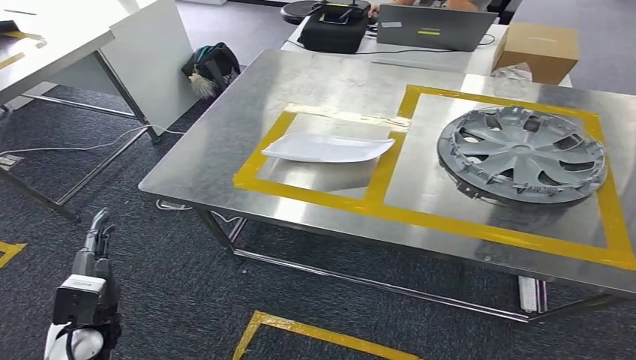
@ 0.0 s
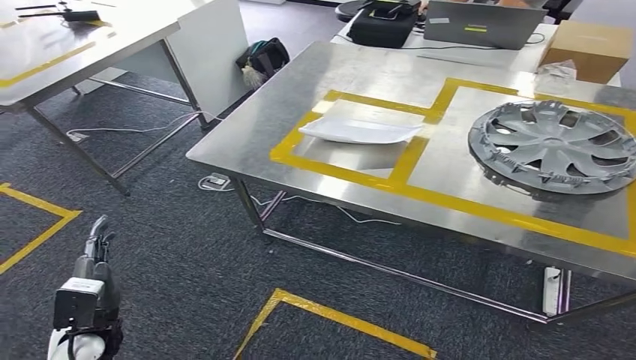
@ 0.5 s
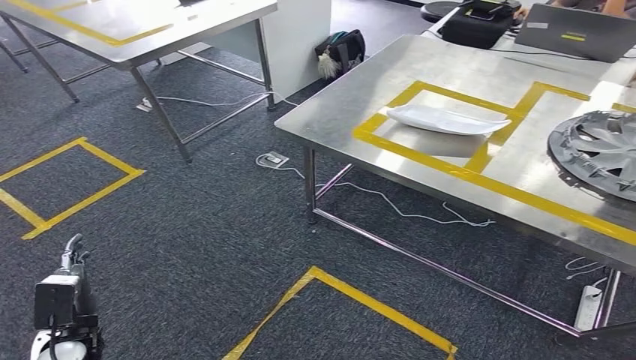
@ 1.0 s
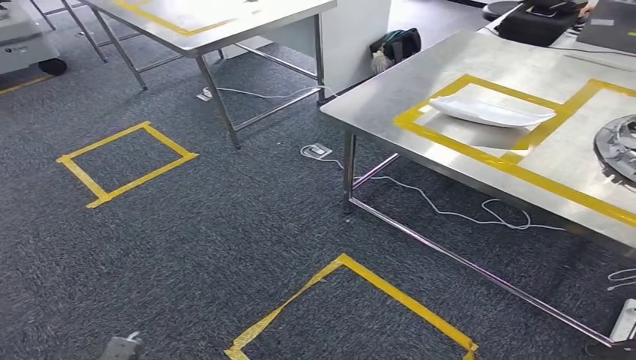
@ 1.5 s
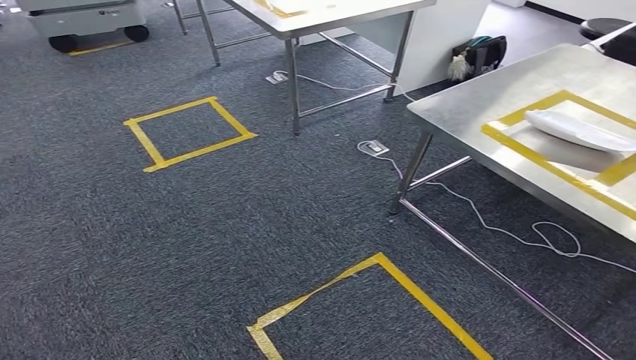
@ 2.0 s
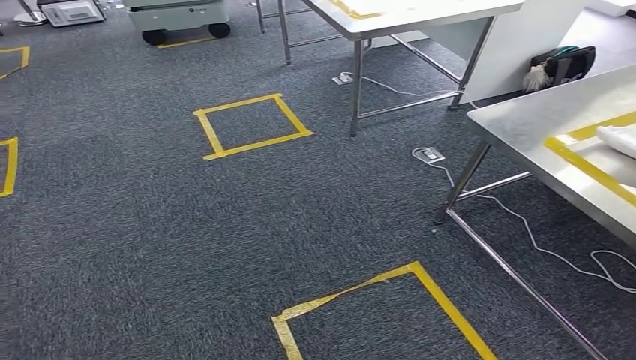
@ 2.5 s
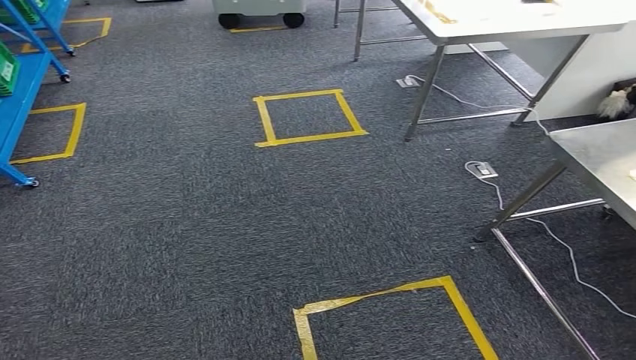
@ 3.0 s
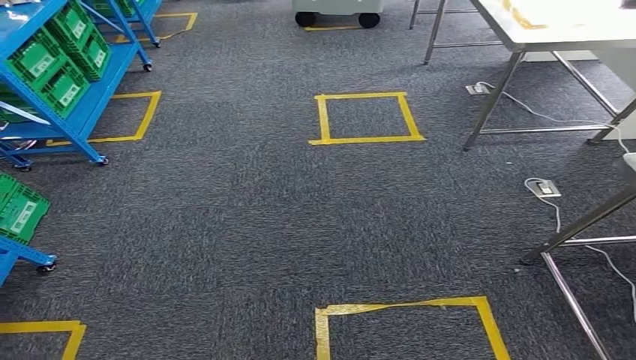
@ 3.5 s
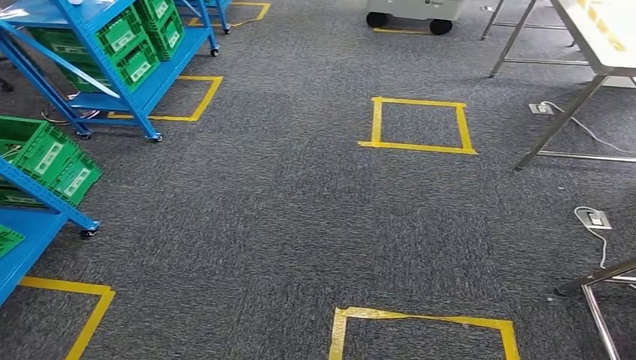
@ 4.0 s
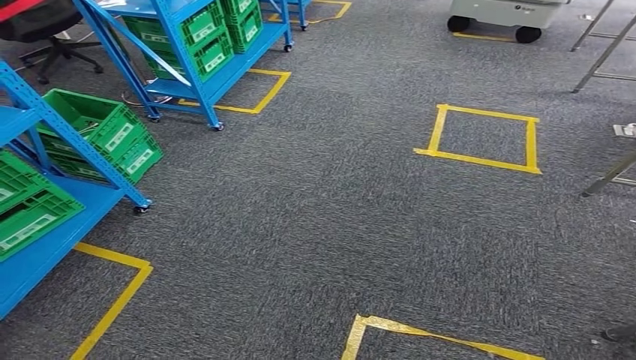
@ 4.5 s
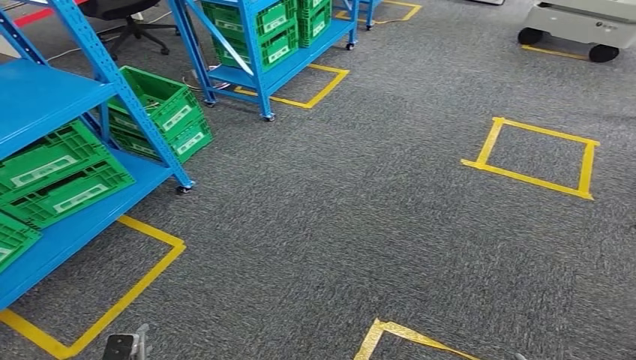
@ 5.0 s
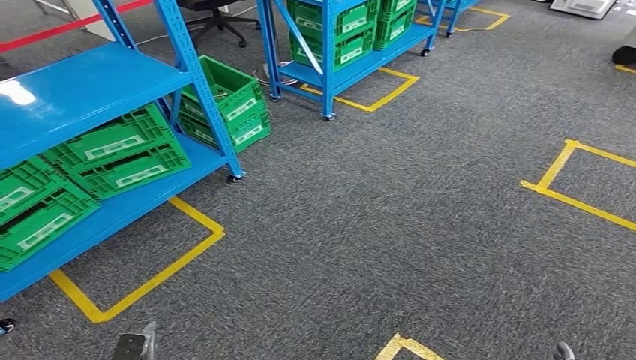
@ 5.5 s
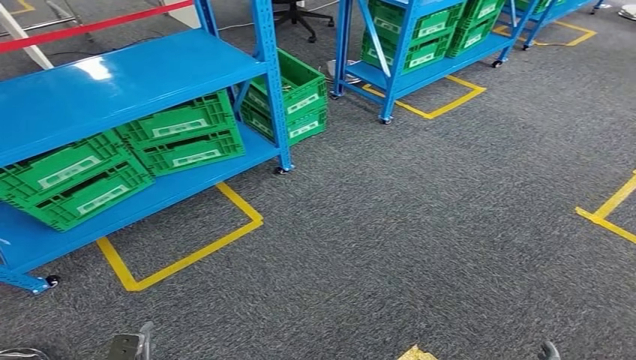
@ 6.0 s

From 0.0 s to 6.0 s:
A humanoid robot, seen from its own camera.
Step, from 0.0 s to 6.0 s: Move to the initial position of the workbench.

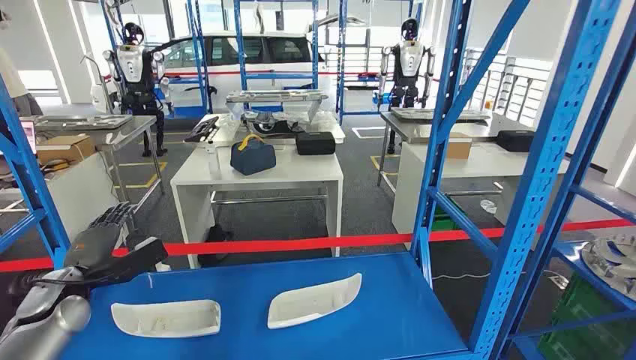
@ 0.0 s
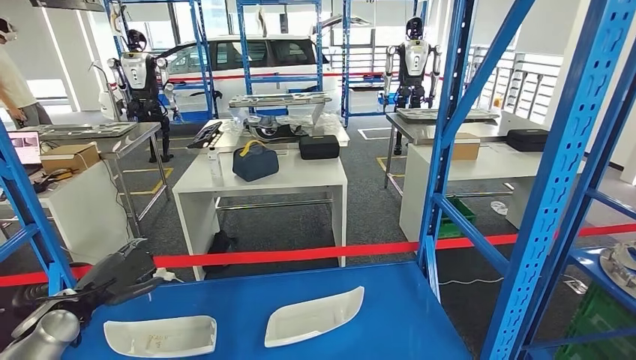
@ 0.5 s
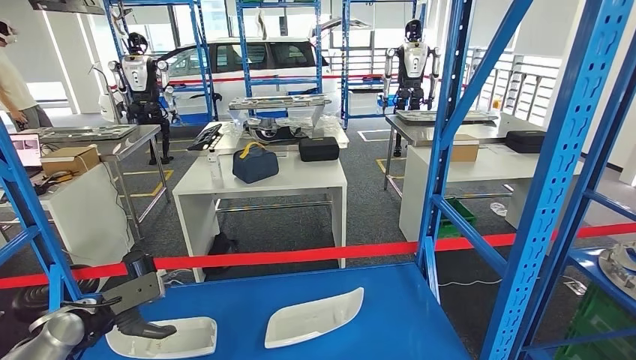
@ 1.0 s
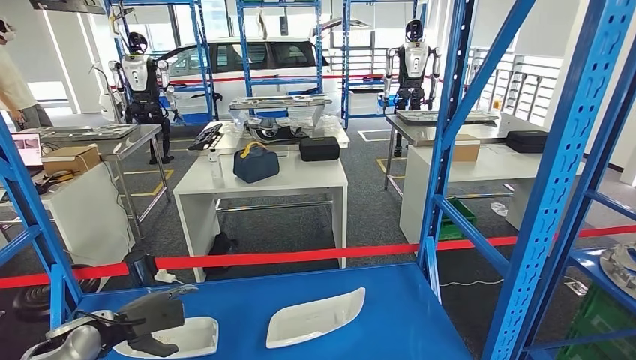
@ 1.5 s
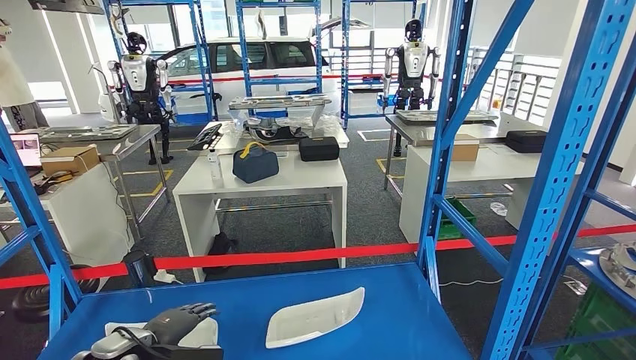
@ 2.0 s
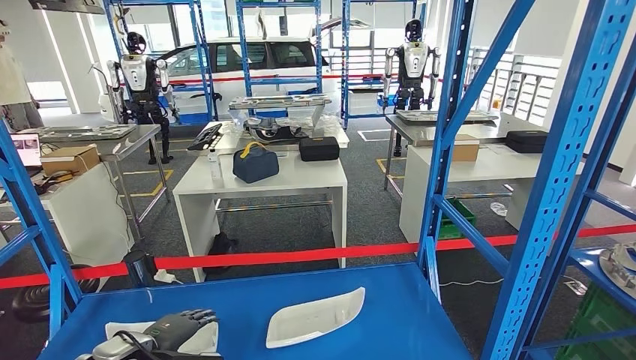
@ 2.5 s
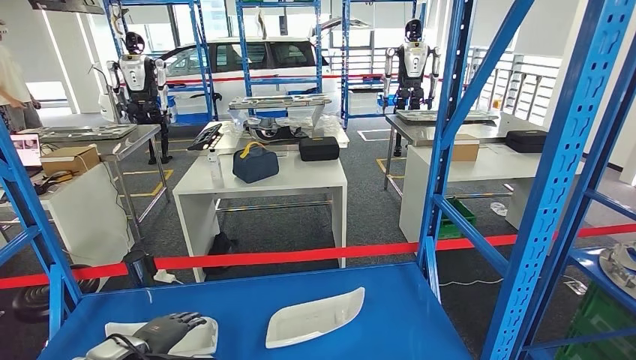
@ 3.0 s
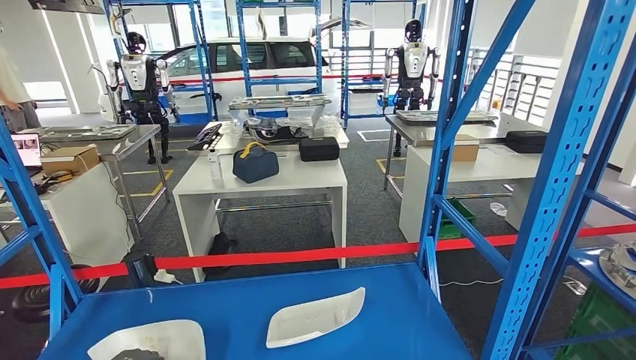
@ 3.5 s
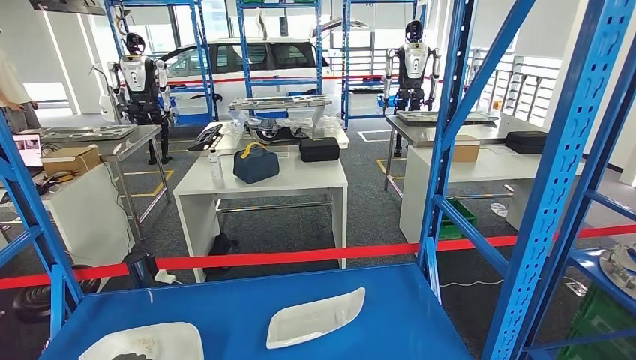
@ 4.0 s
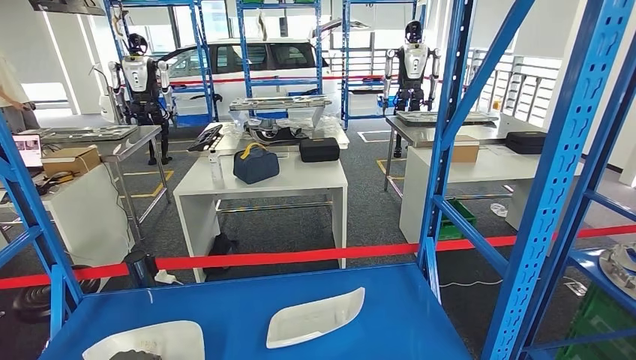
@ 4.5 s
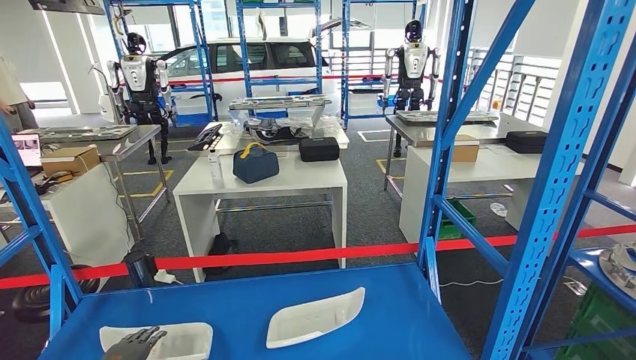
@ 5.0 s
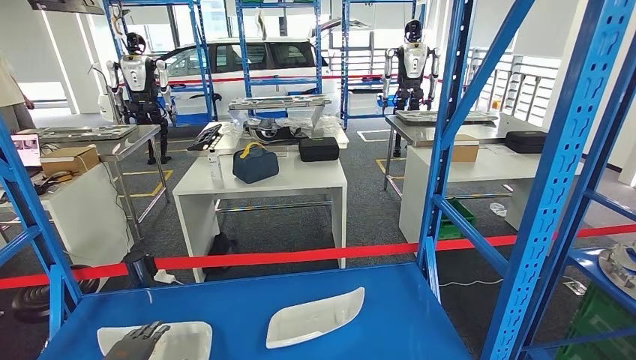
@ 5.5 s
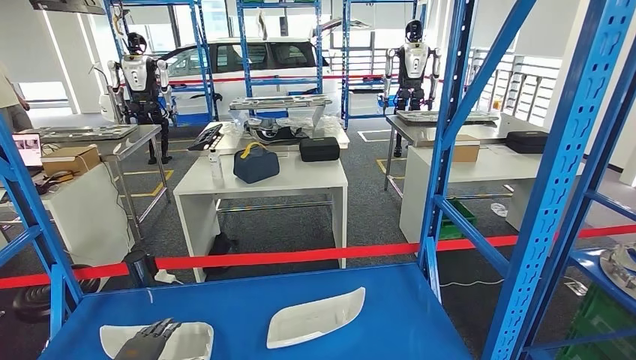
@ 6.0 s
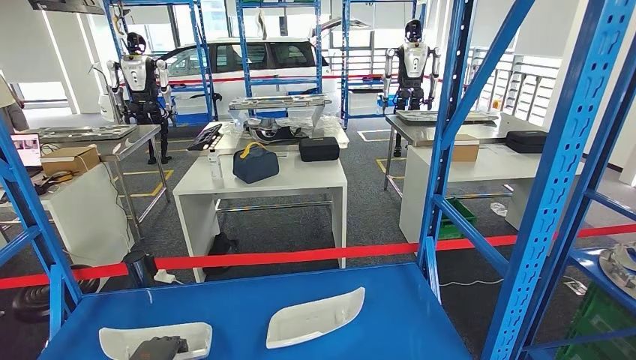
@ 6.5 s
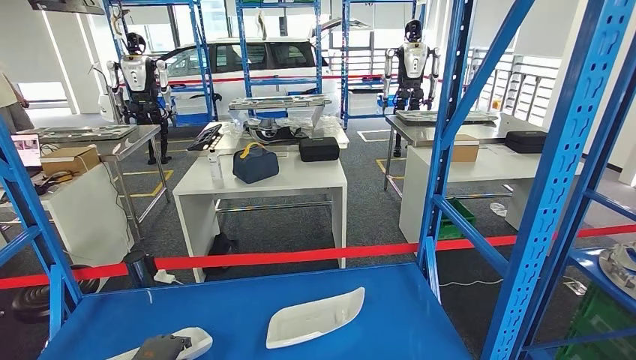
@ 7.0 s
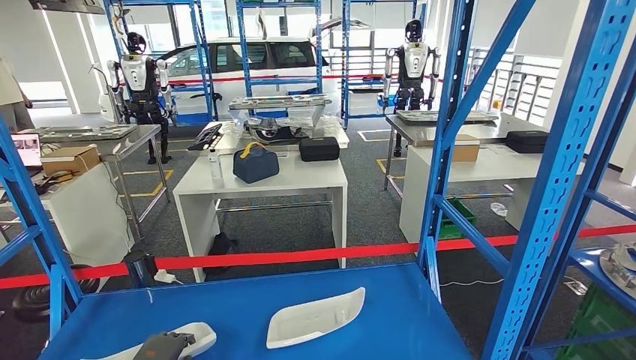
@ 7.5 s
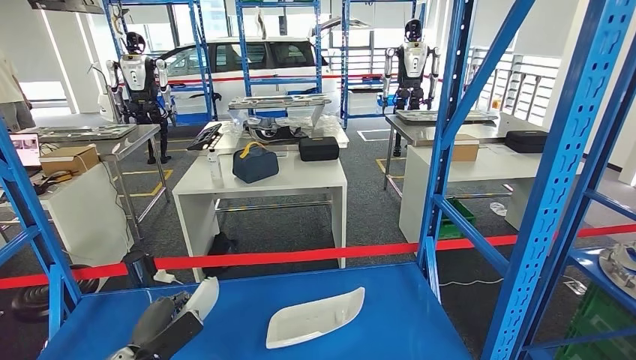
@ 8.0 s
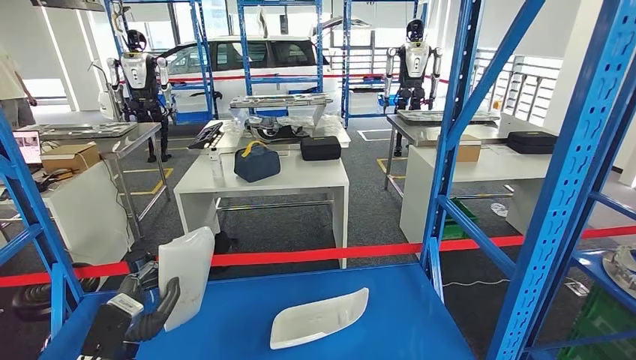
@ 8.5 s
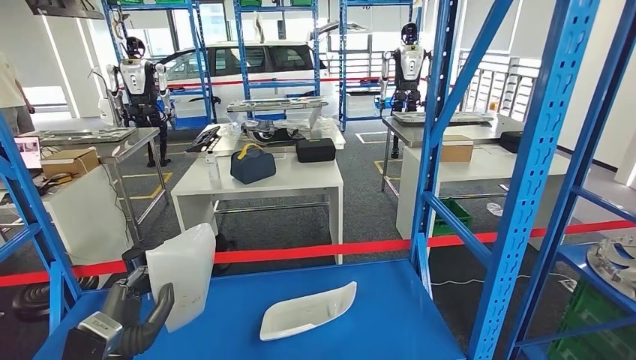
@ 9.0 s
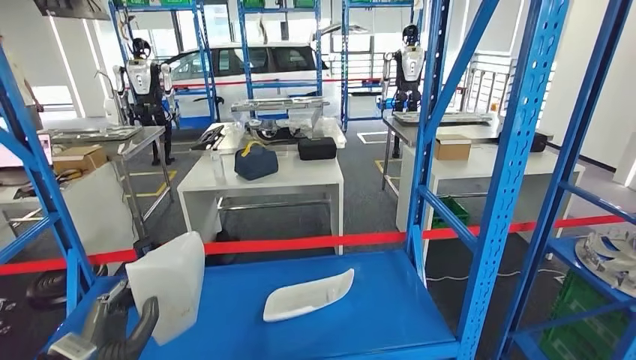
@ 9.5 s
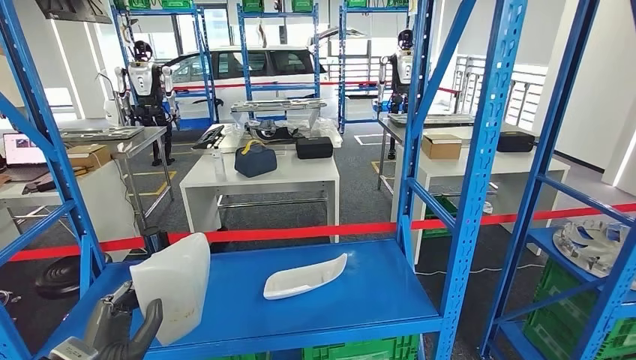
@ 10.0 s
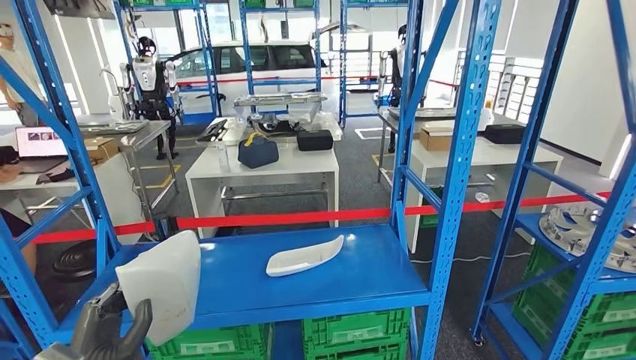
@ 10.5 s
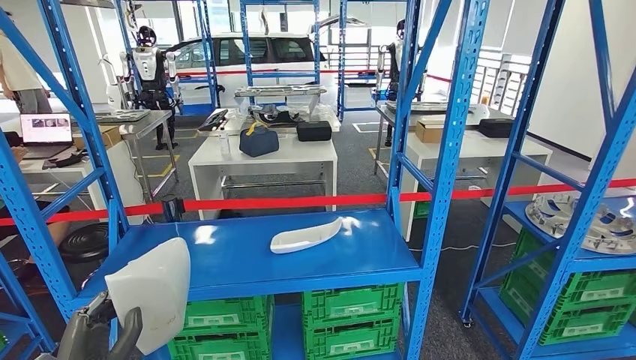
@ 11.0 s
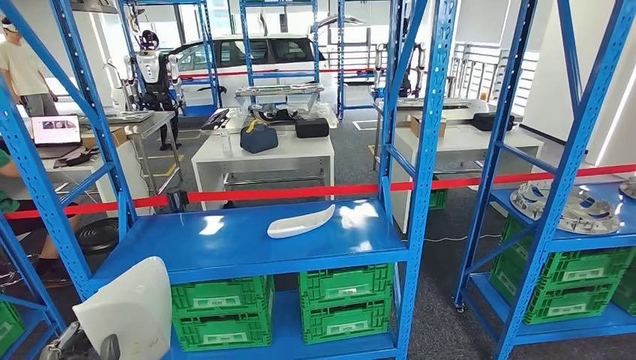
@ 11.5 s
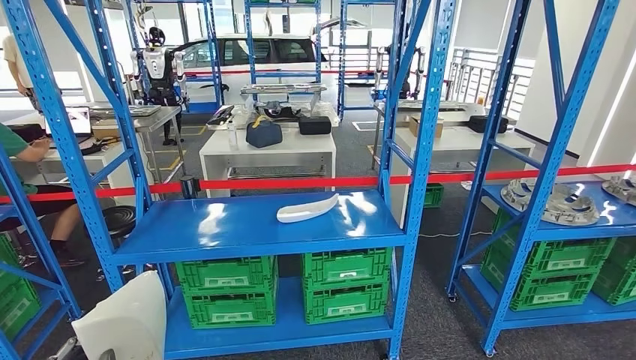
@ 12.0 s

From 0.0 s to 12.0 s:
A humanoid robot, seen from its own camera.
Step, from 0.0 s to 10.5 s: Take small components from the rack.
From 2.0 s to 4.0 s: The left hand goes some 10 cm to the left and downward.
From 6.0 s to 8.0 s: The left hand changes place by roughly 5 cm.

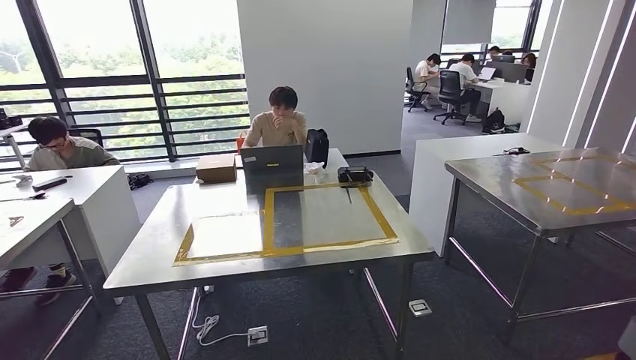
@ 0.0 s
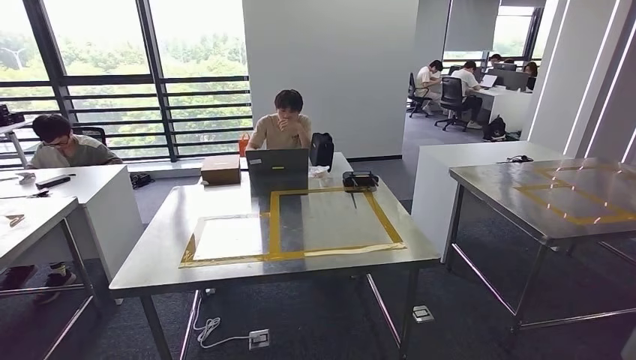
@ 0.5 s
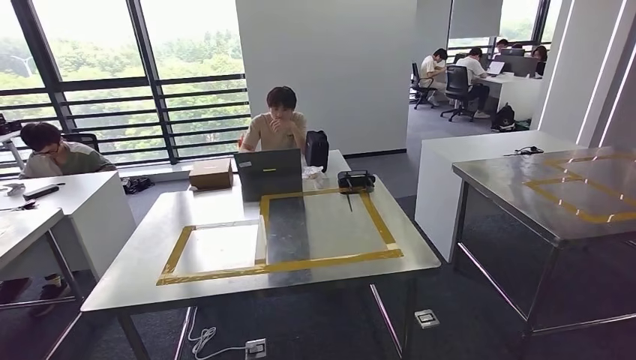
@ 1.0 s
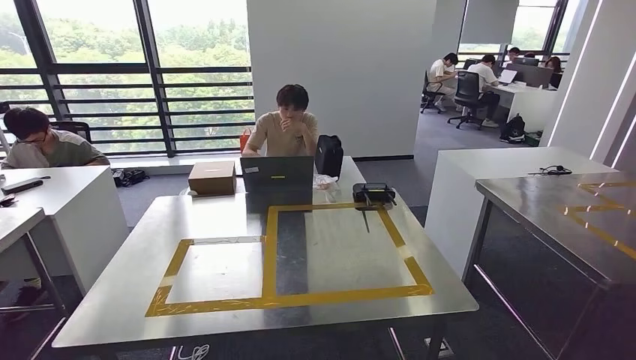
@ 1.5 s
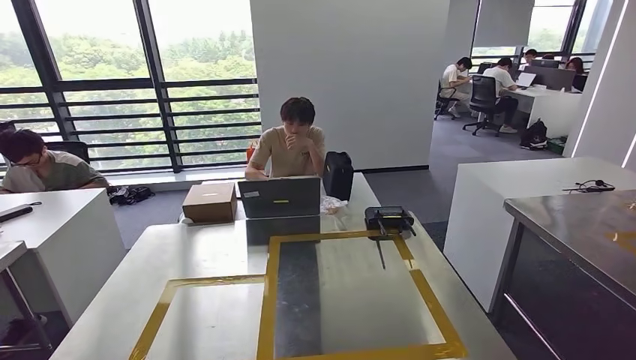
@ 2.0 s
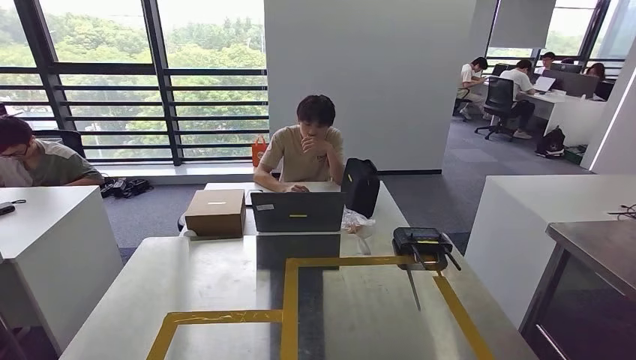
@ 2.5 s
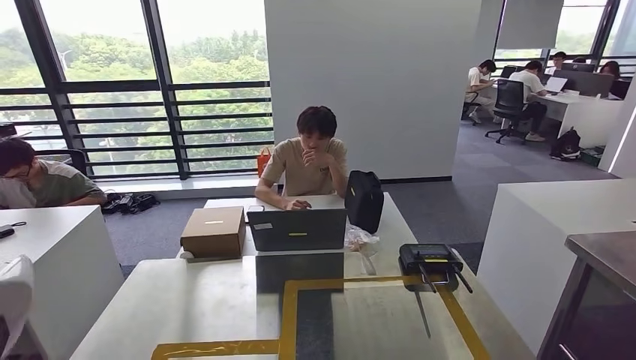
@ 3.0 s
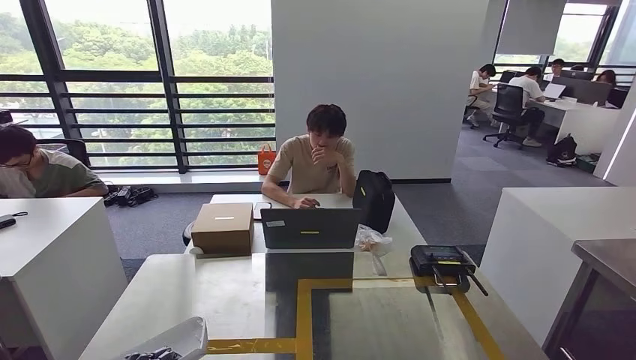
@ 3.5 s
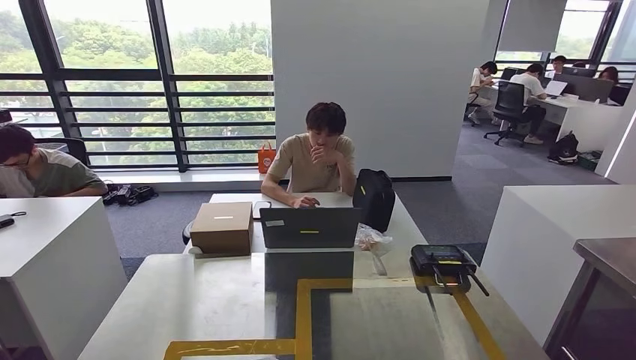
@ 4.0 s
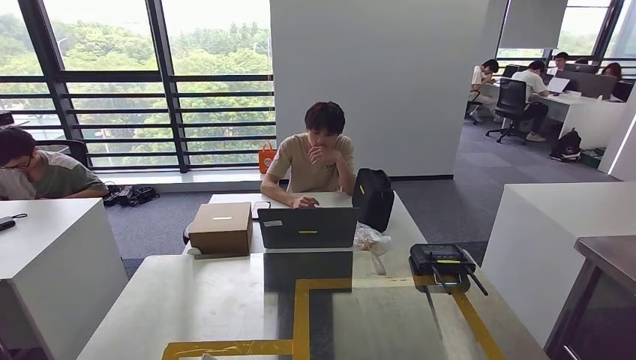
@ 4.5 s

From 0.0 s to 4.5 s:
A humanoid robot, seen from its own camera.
Step, from 0.0 s to 2.0 s: Move the small parts to the workbench.
